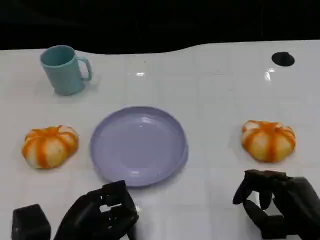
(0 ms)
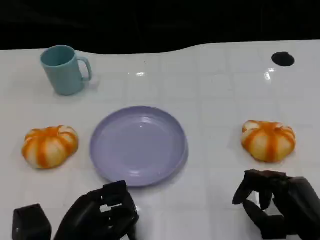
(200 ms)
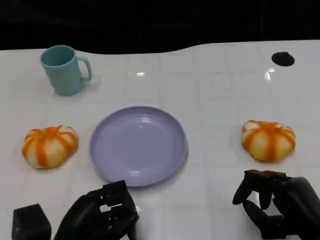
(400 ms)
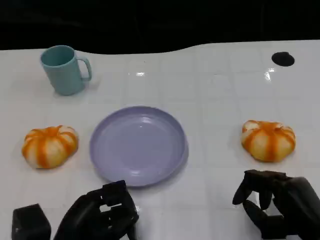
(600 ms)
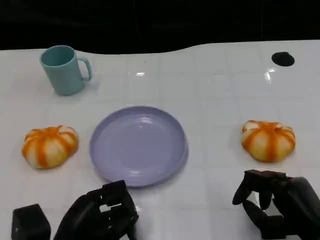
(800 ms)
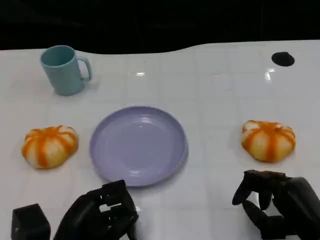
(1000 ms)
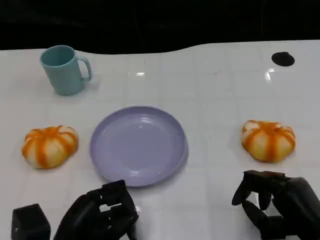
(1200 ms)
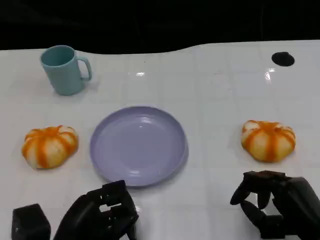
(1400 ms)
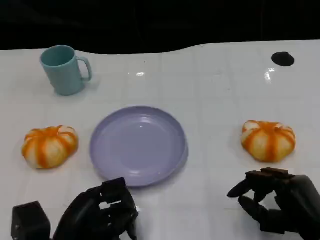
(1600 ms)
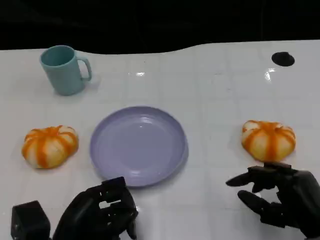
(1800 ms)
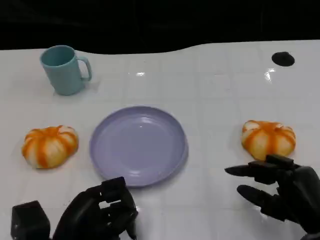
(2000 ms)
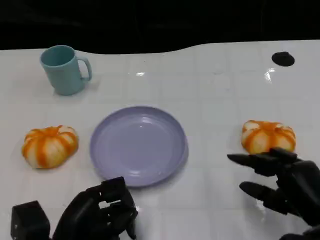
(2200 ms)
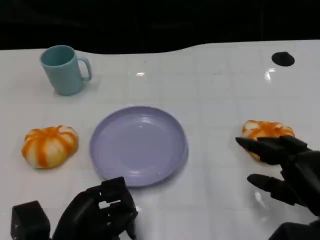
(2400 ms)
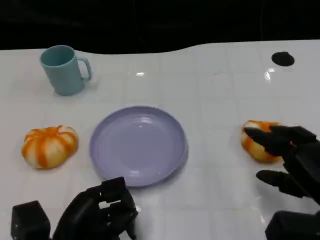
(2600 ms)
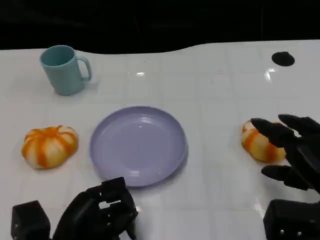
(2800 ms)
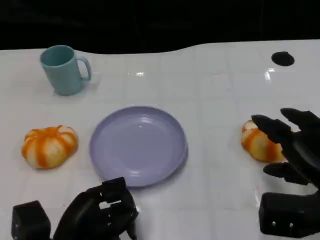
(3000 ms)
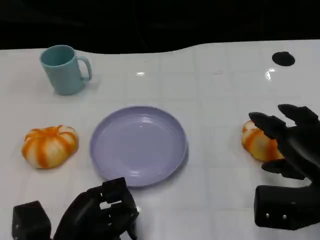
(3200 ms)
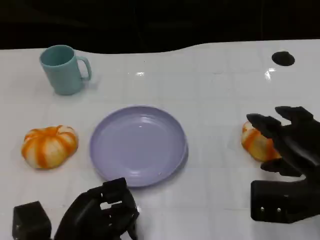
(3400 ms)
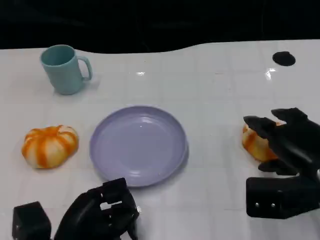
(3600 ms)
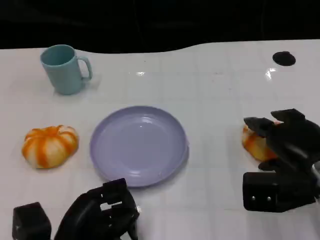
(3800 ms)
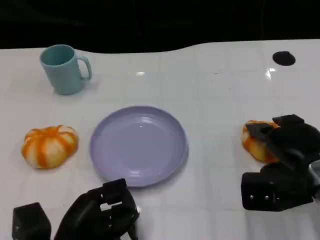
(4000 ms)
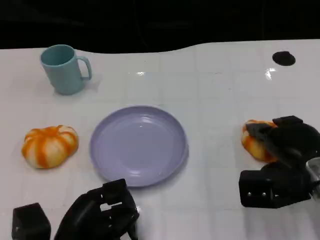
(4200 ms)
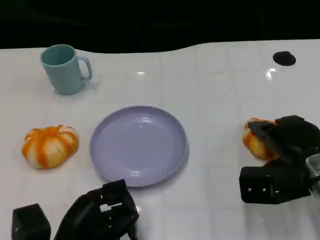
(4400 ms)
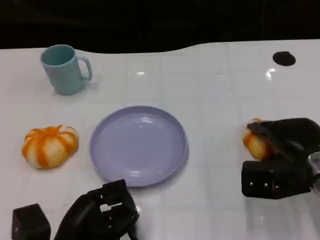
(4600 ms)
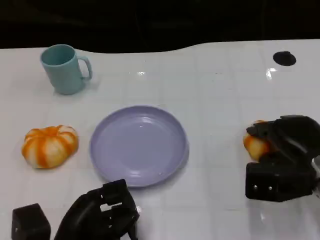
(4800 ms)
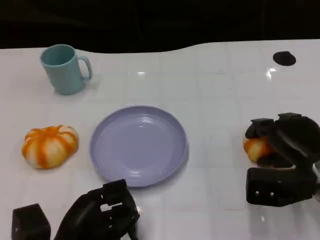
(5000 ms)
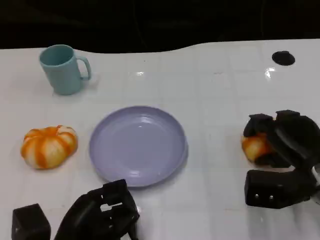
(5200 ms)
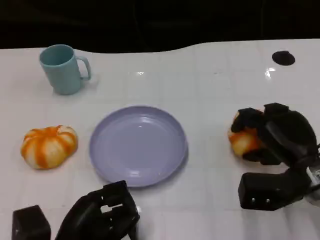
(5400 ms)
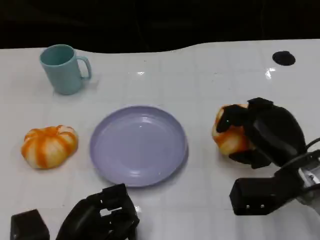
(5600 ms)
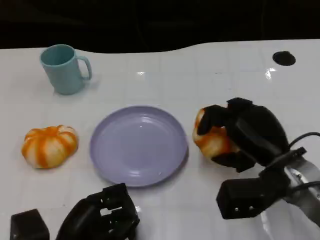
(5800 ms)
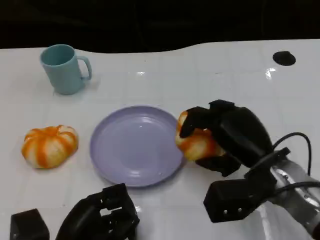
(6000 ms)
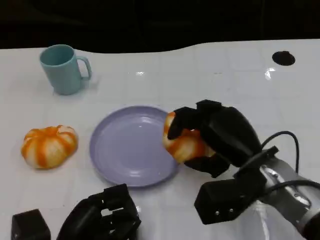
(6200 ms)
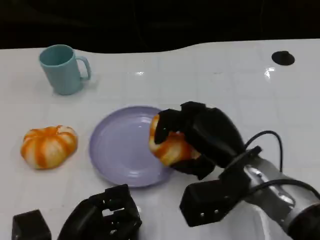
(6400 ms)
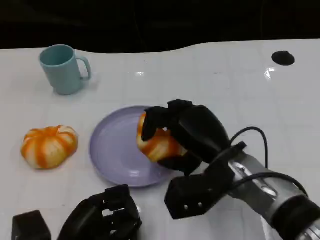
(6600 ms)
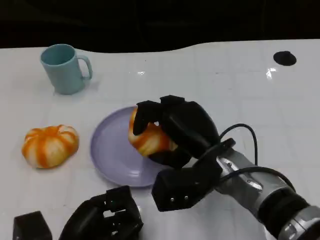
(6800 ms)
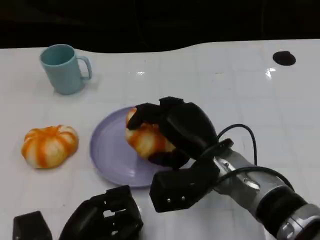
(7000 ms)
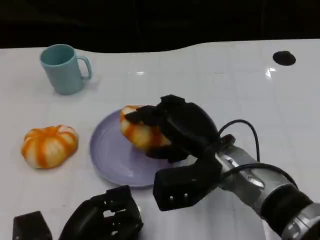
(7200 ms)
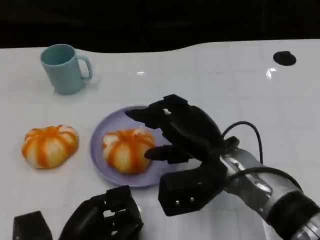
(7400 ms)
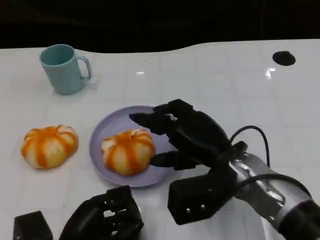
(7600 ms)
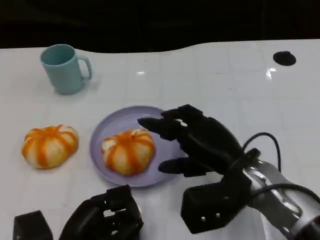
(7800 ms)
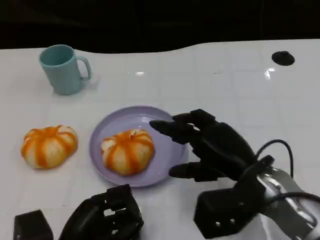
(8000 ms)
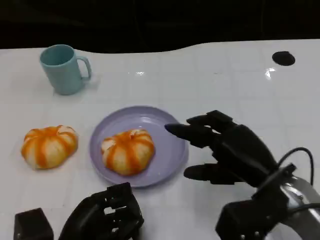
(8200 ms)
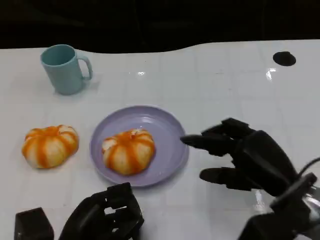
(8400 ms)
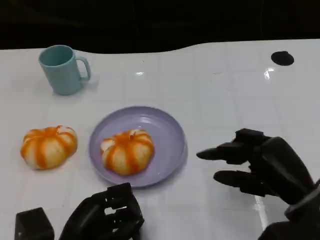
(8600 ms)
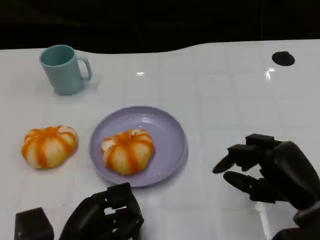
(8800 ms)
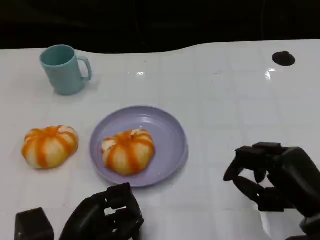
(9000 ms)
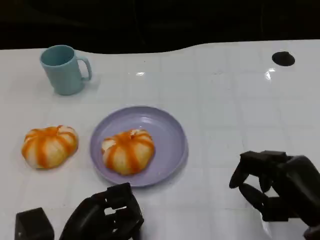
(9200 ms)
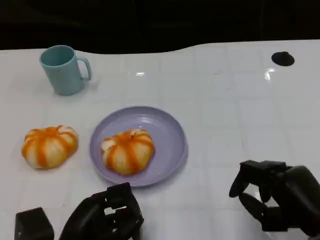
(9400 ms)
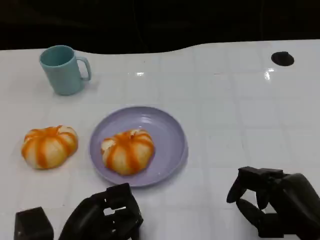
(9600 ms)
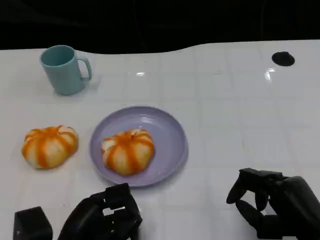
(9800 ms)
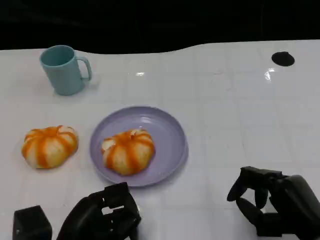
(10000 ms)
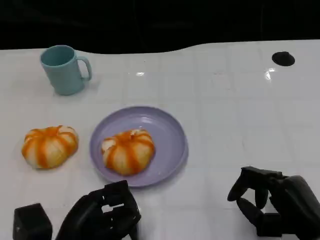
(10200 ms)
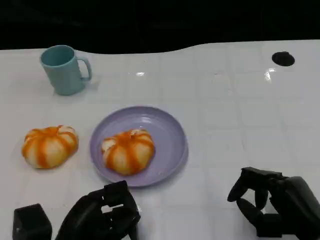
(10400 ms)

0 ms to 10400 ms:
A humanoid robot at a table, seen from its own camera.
Task of the whole recording: Grasp the bread from the table and place it into the plate.
0 ms to 1400 ms: Both hands stay put.
1400 ms to 3000 ms: The right hand travels upward by roughly 5 cm.
3000 ms to 4400 ms: The right hand moves forward, roughly 5 cm.
4400 ms to 6000 ms: The right hand moves to the left, about 5 cm.
6000 ms to 7400 ms: The right hand travels to the left by about 5 cm.
7400 ms to 9000 ms: The right hand heads to the right and backward, covering some 15 cm.
9000 ms to 10400 ms: The hands stay close to where they were, moving slightly.

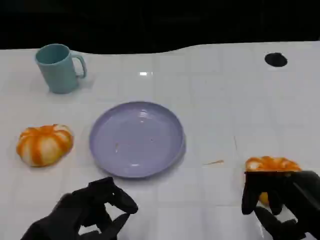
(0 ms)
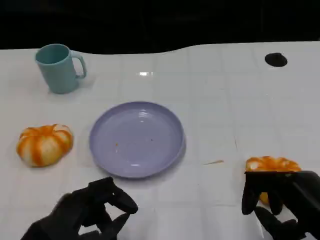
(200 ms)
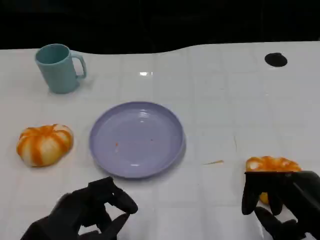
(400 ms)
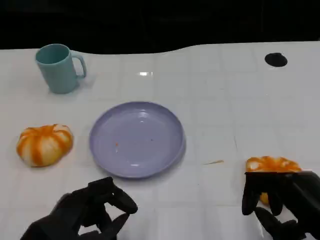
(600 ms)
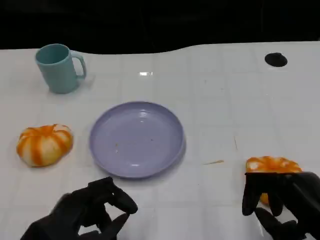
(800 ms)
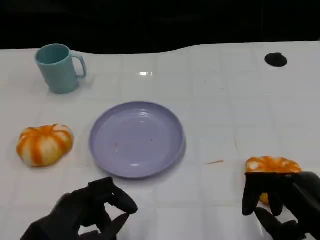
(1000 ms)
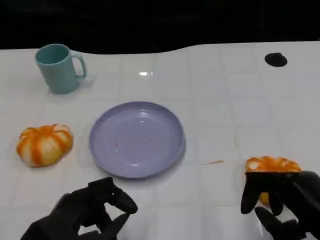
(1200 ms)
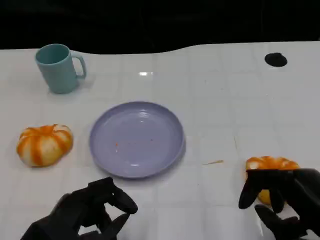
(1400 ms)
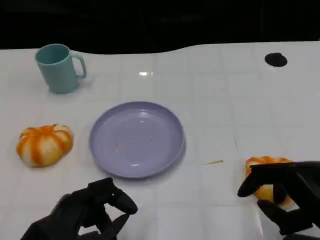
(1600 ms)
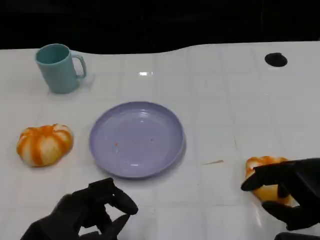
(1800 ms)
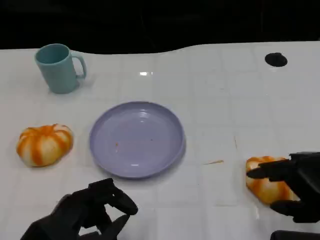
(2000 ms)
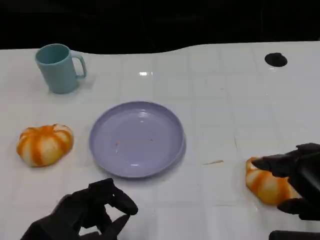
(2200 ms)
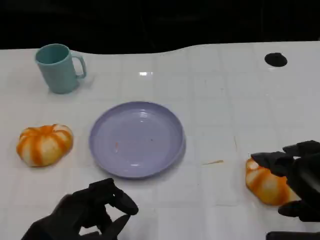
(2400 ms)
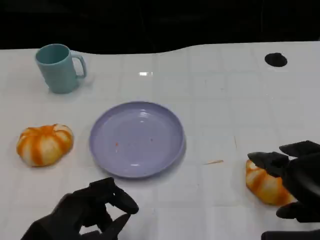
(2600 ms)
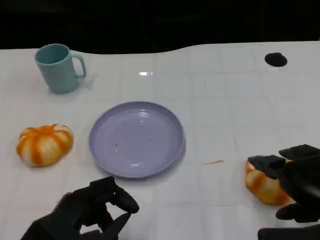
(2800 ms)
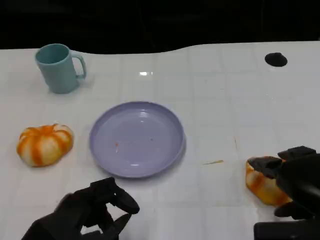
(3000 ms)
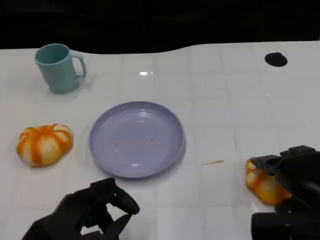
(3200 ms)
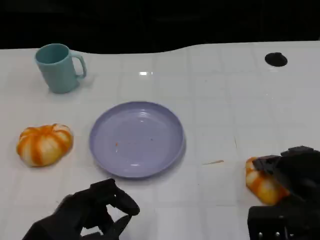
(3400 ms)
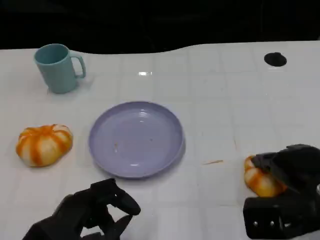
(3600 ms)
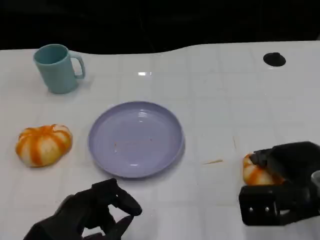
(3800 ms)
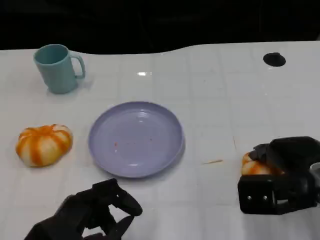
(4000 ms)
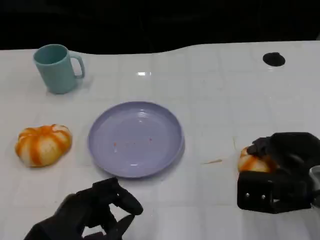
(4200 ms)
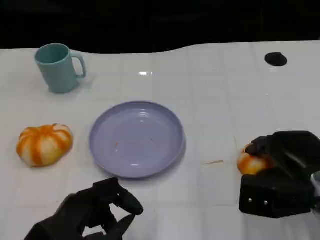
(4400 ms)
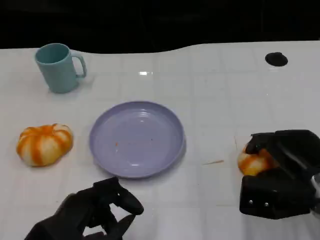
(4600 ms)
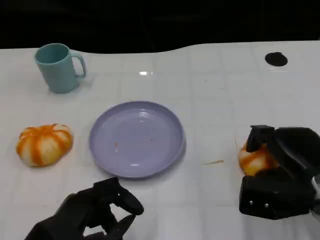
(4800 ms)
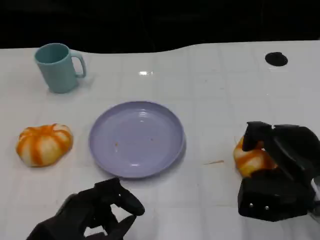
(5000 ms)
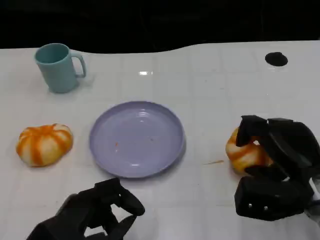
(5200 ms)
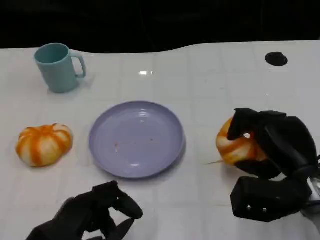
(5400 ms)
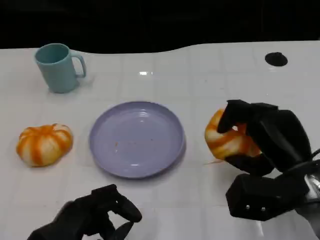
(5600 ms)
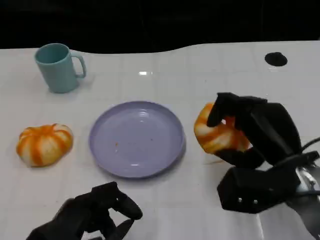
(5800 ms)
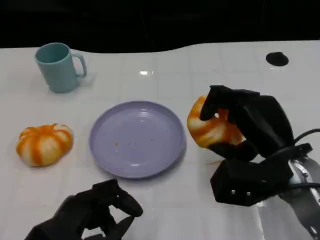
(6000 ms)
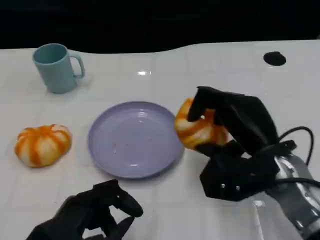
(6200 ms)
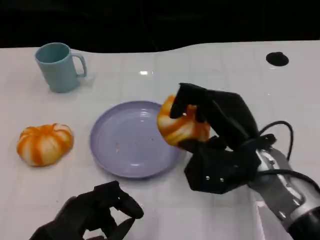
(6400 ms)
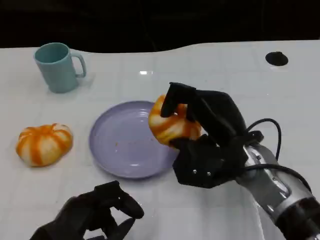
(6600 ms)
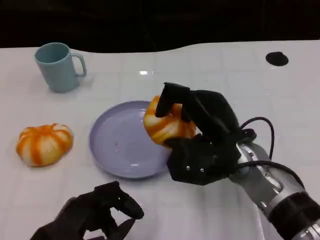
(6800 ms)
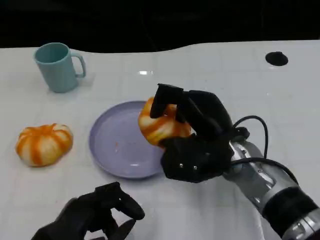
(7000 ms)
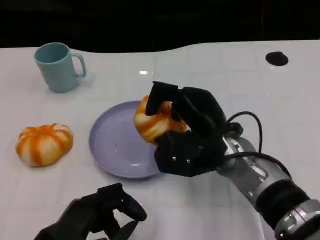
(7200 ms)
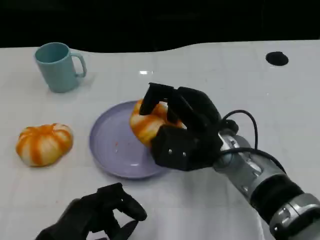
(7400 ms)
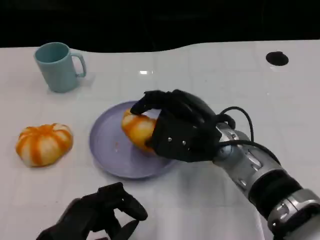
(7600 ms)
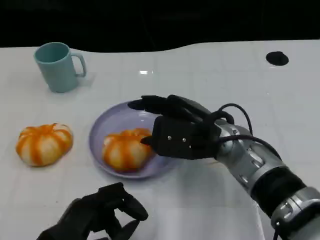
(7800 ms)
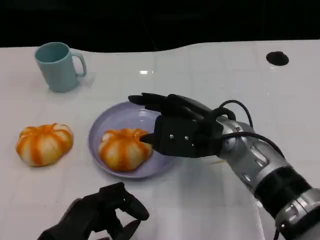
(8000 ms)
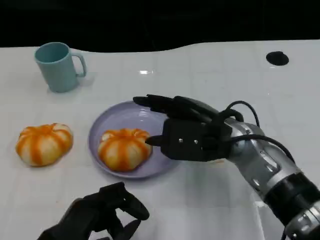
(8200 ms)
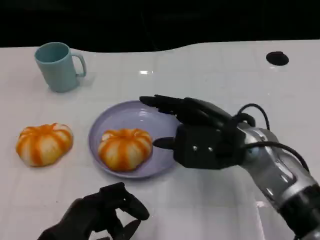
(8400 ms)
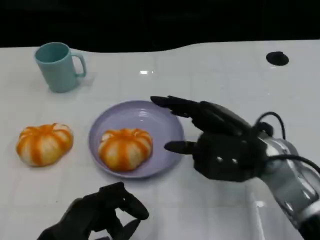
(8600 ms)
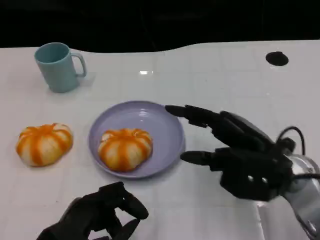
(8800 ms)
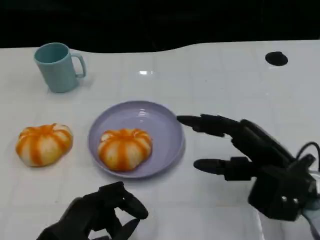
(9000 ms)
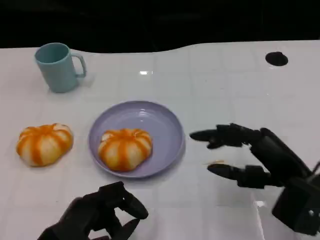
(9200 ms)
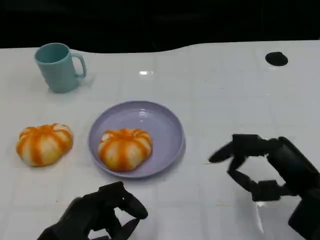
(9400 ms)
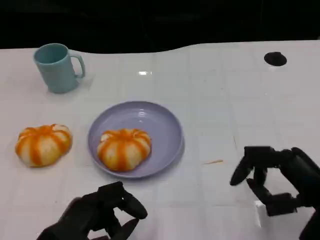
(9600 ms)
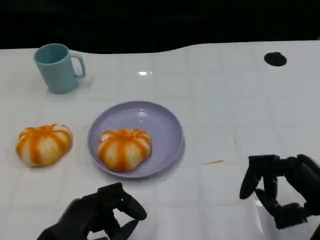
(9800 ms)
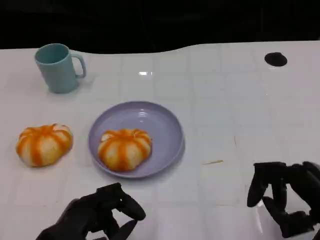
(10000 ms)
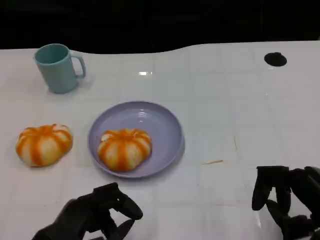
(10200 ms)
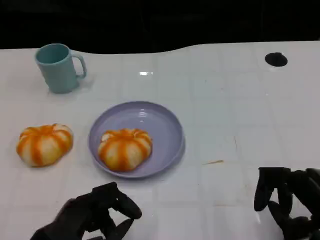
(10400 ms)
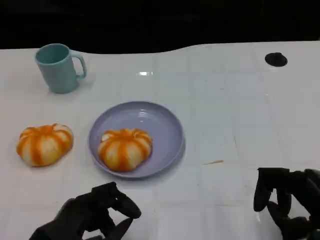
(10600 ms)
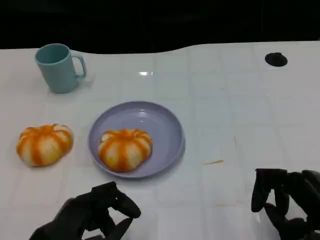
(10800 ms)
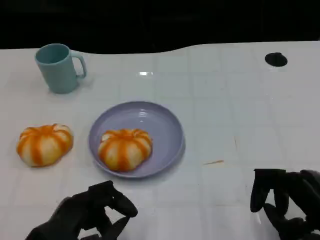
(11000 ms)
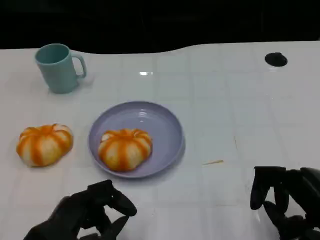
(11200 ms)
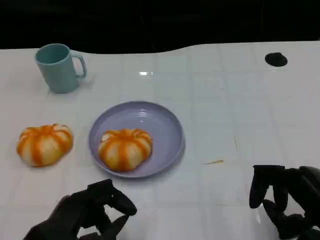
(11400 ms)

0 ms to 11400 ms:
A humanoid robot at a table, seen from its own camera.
Task of the whole recording: Grasp the bread from the table and place it into the plate.
0 ms to 1400 ms: Both hands stay about where they are.
2800 ms to 4200 ms: The right hand moves forward, roughly 10 cm.
5600 ms to 7200 ms: The right hand heads to the left, covering about 10 cm.
7200 ms to 8600 ms: The right hand travels to the right by some 5 cm.
8600 ms to 10000 ms: The right hand is displaced to the right and backward by some 15 cm.
10000 ms to 11400 ms: The hands stay close to where they were, moving slightly.
